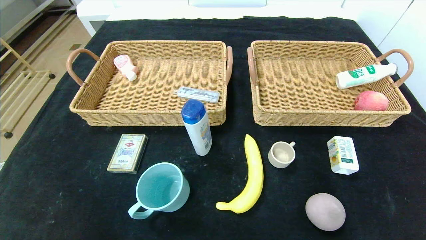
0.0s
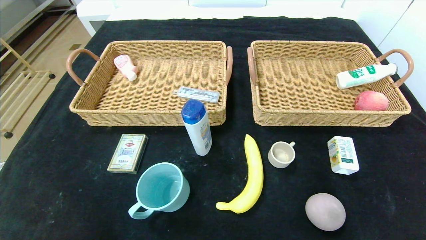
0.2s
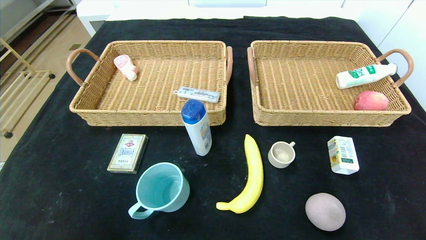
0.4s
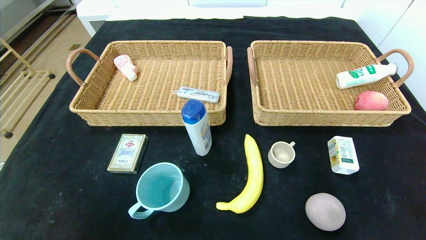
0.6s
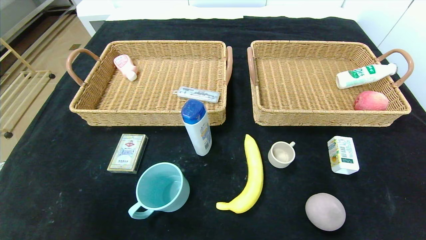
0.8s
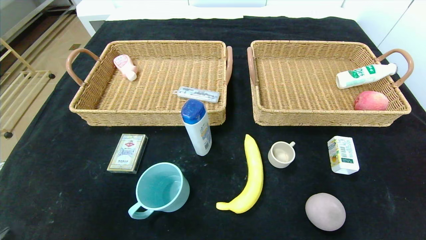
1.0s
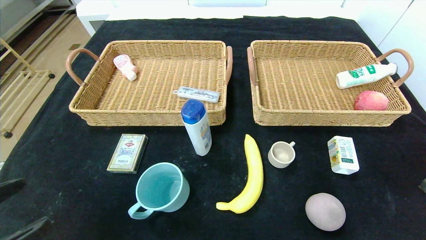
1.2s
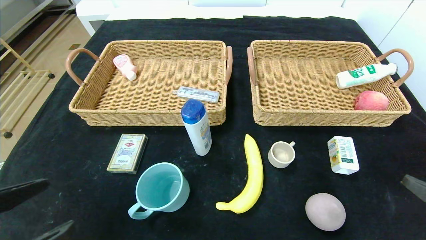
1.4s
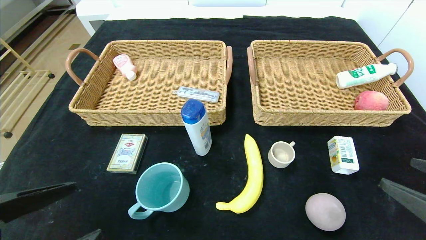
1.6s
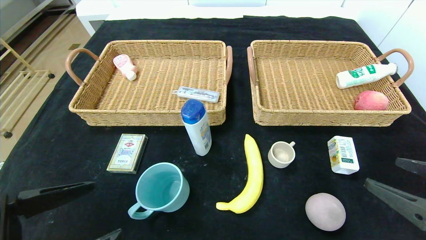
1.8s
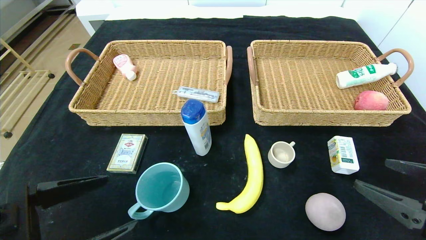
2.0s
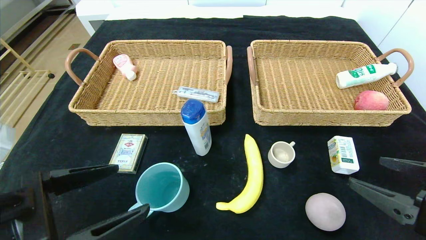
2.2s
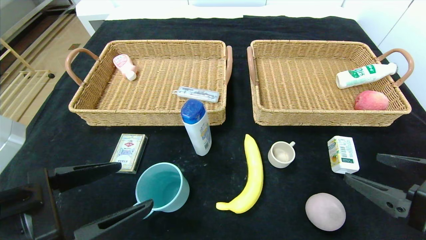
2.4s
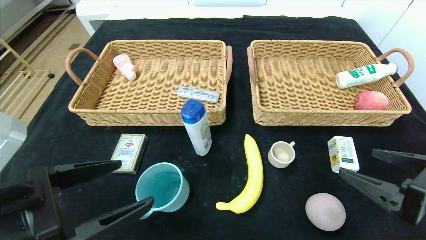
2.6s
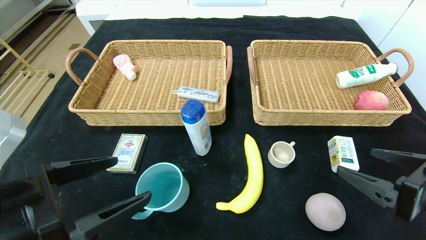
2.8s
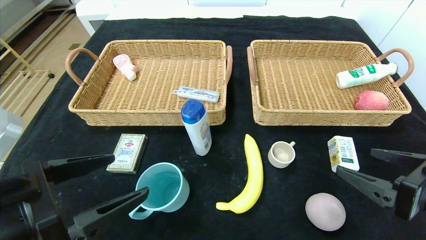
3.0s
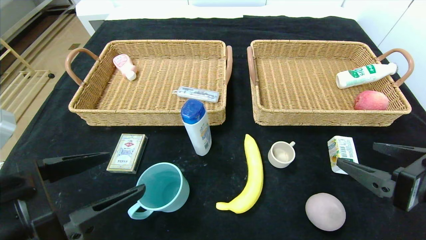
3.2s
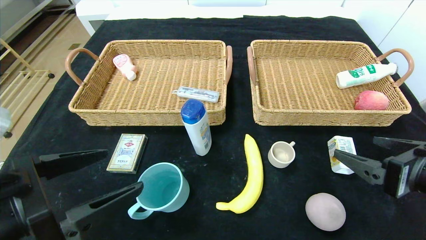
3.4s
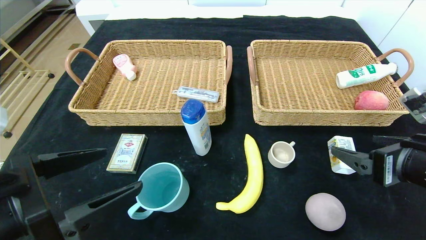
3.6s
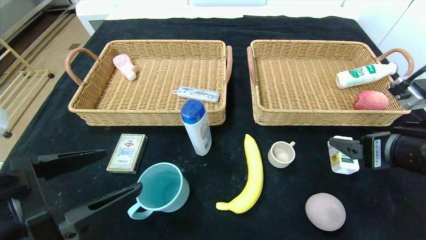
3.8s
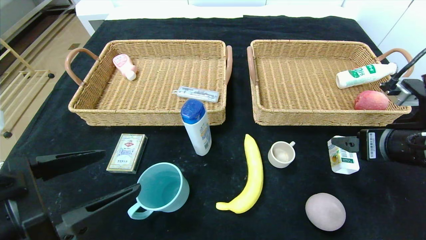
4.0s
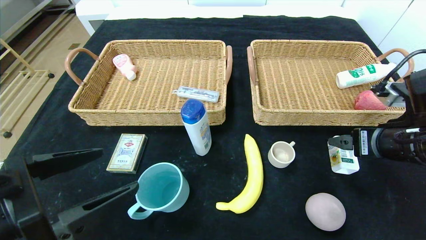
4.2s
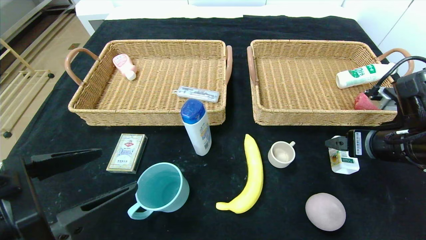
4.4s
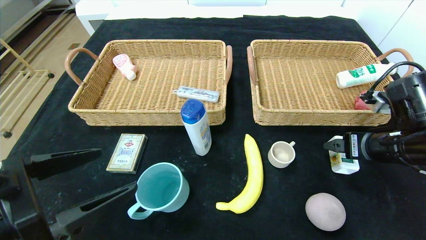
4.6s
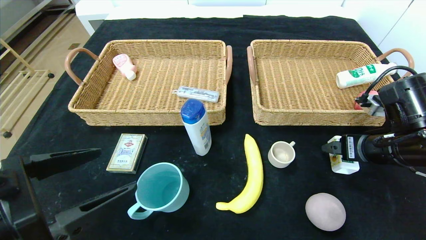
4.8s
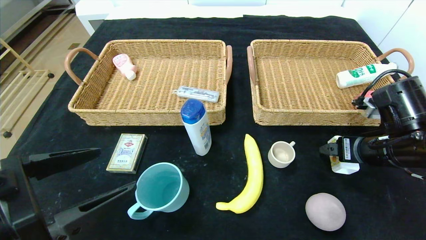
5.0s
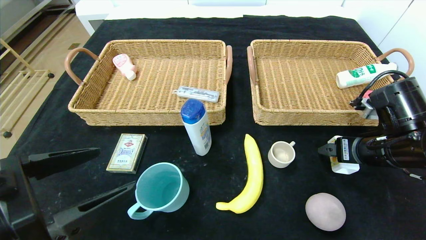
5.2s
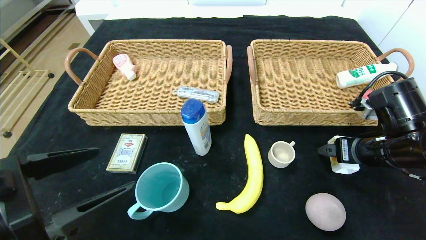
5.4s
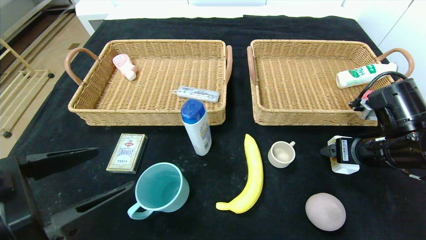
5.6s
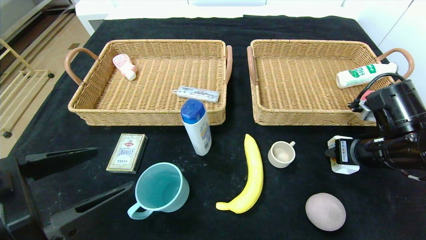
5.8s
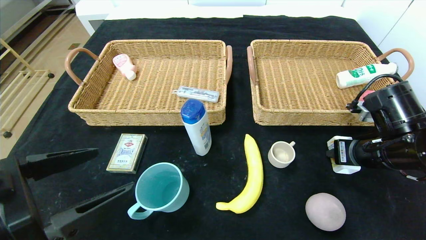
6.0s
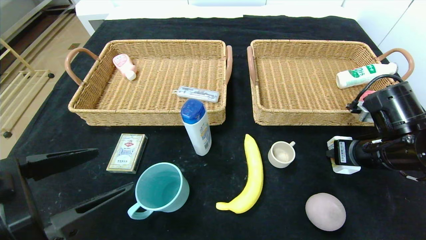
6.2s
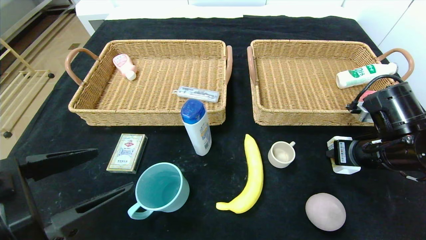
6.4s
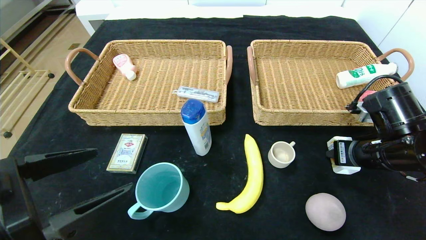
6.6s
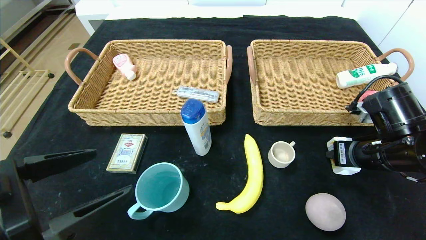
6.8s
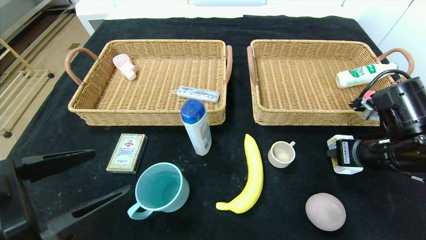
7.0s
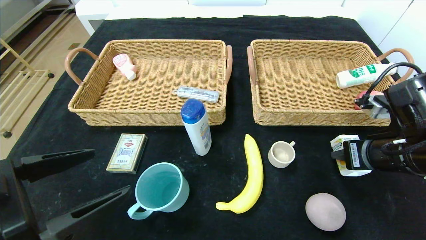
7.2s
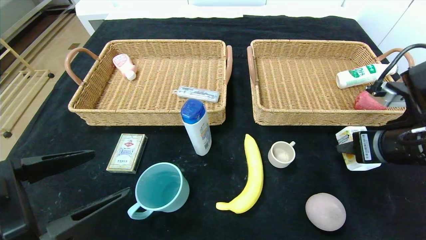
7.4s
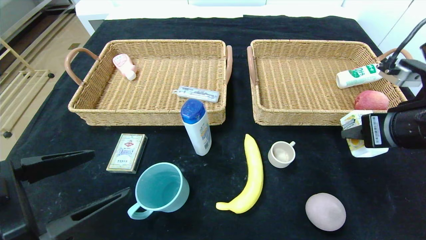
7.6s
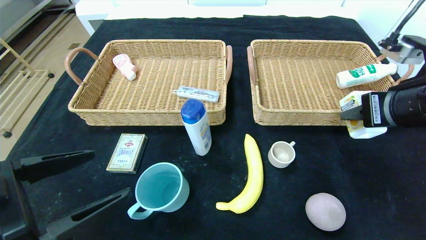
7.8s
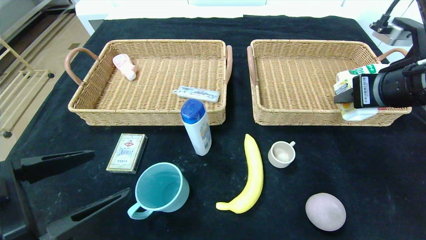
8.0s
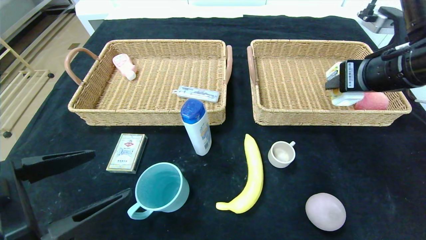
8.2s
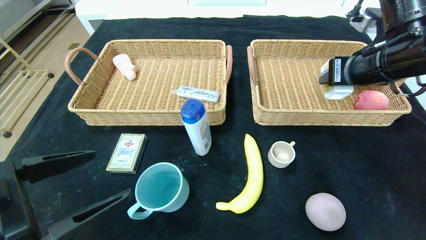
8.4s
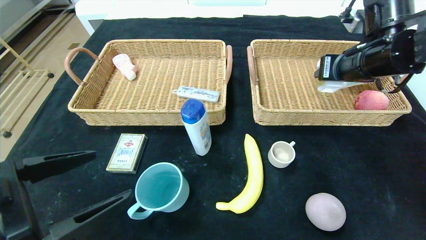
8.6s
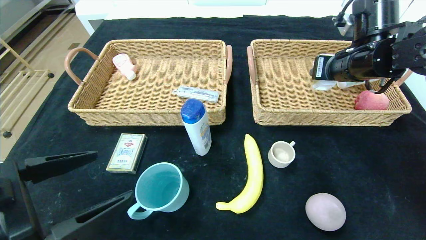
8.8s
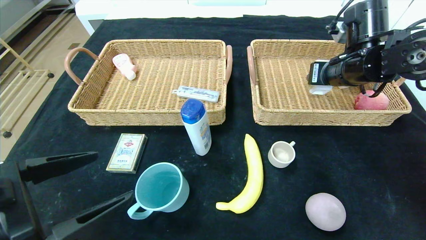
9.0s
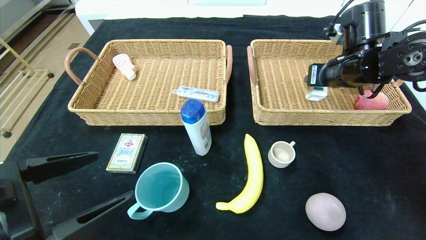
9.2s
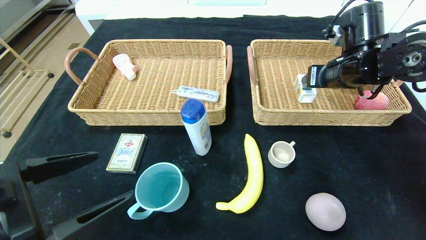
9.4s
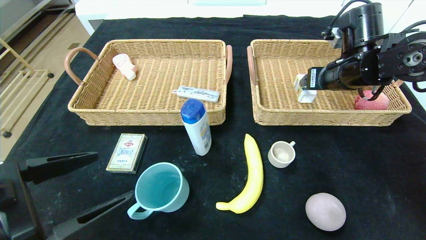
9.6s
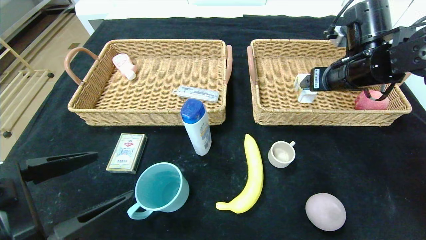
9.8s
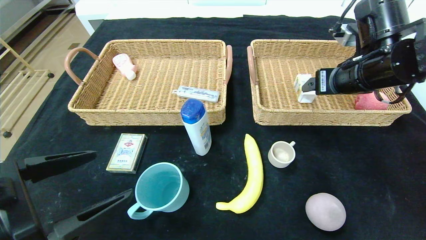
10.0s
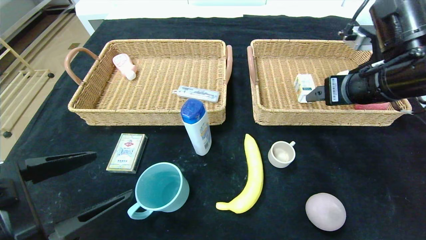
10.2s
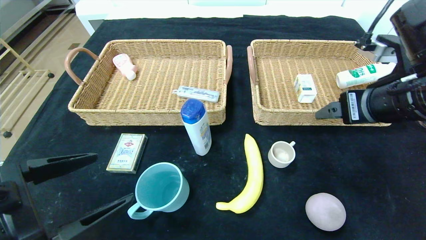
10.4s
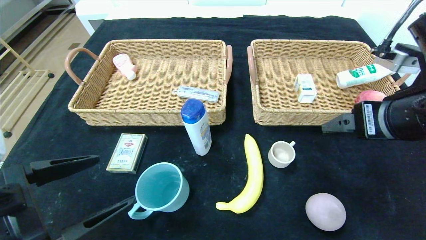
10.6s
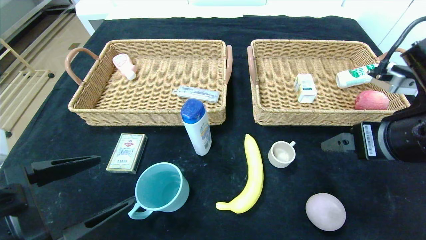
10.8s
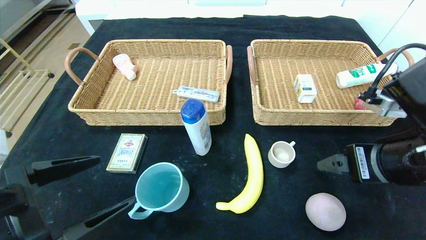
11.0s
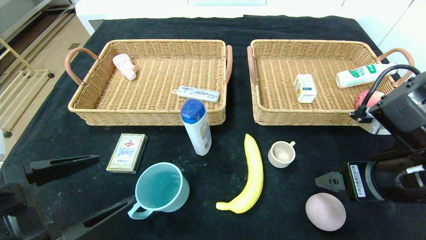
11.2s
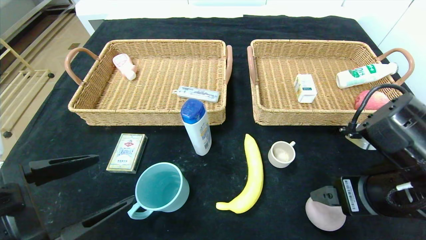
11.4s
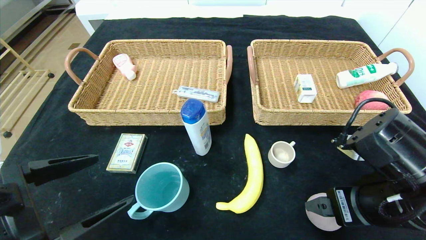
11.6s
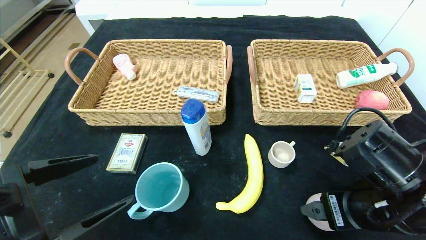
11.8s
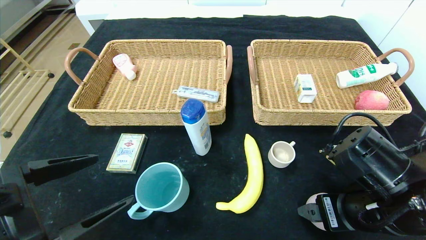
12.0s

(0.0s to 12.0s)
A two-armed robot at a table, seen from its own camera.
Step, 0.0s - 10.6s: Pick up the square chewing gum and put it in the right basket.
0.0s - 1.6s: The grippers both shift forward and upward by some 10 cm.
1.6s - 3.0s: The right gripper moves roughly 5 cm. The left gripper changes place by approximately 5 cm.
3.0s - 4.4s: The right gripper is displaced forward by roughly 10 cm.
4.4s - 6.0s: The right gripper closes up.
6.0s - 7.6s: The right gripper goes some 10 cm upward.
7.6s - 9.0s: The right gripper goes about 15 cm forward.
9.0s - 10.4s: The right gripper heads backward, covering some 15 cm, and opens up.
10.4s - 12.0s: The right gripper moves downward, about 10 cm.

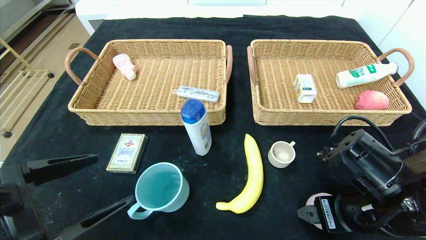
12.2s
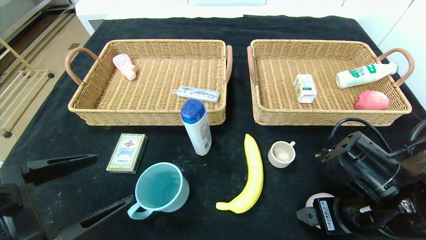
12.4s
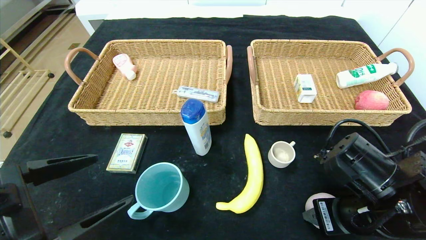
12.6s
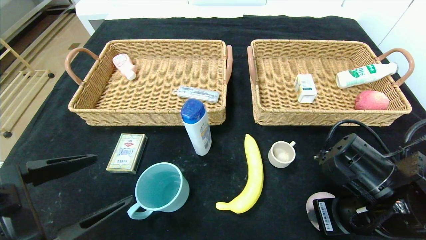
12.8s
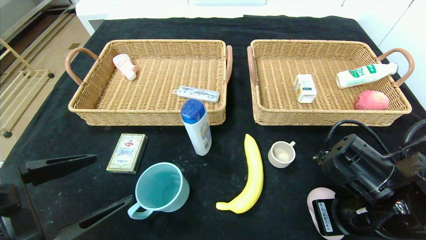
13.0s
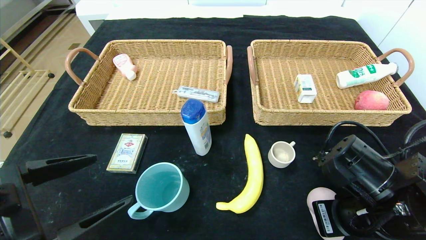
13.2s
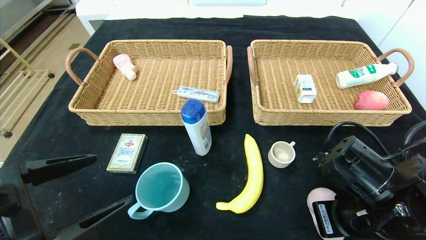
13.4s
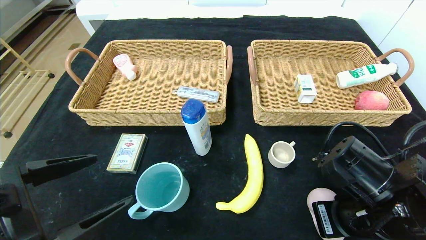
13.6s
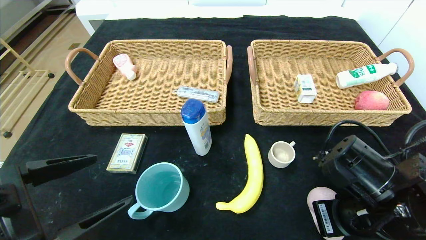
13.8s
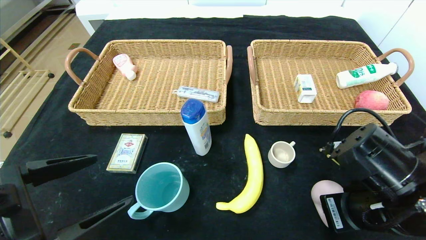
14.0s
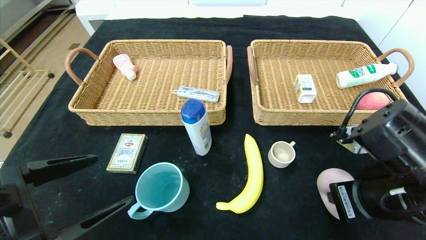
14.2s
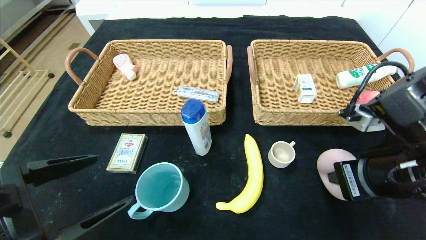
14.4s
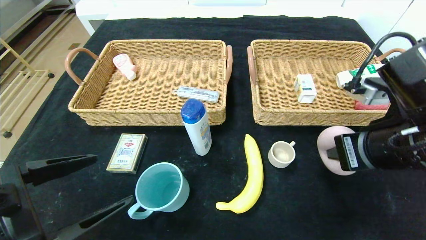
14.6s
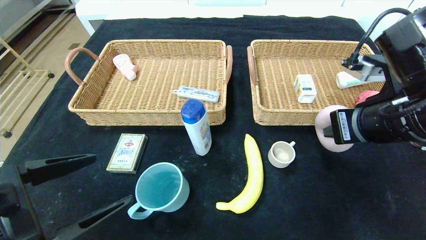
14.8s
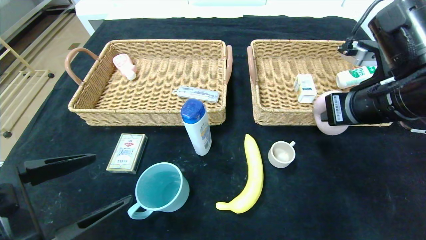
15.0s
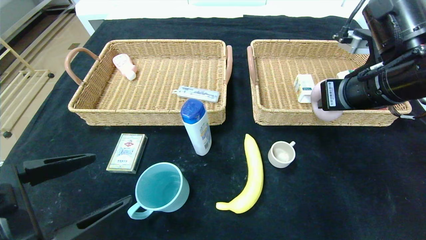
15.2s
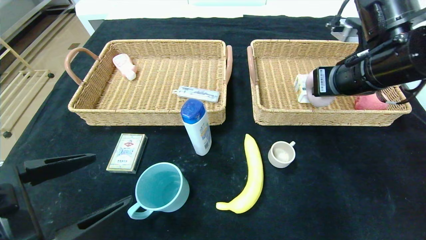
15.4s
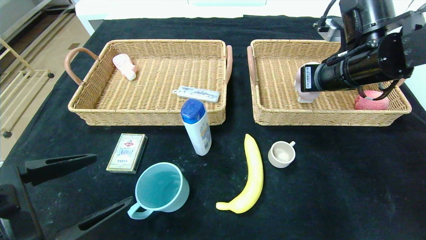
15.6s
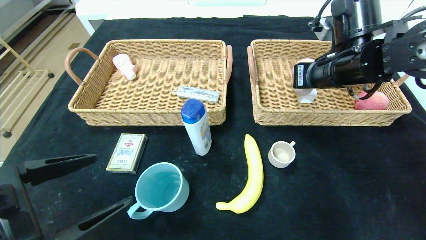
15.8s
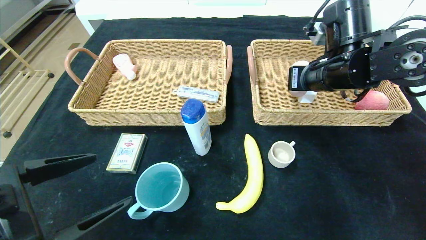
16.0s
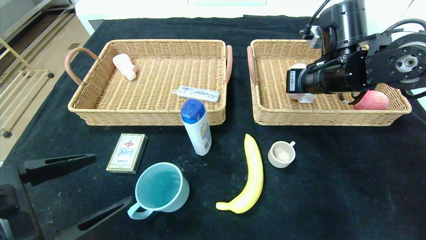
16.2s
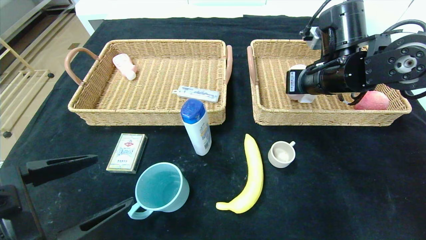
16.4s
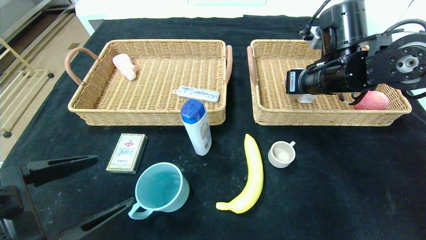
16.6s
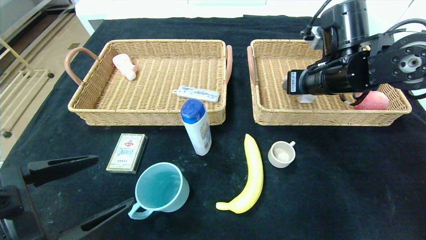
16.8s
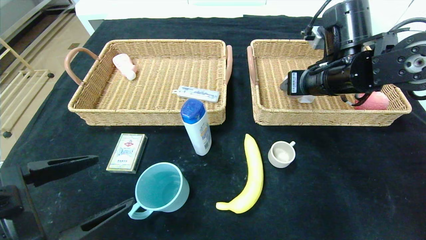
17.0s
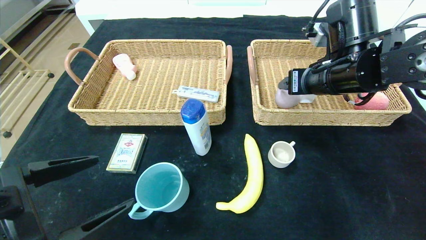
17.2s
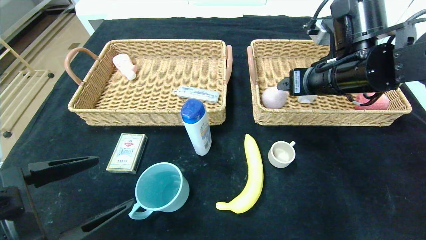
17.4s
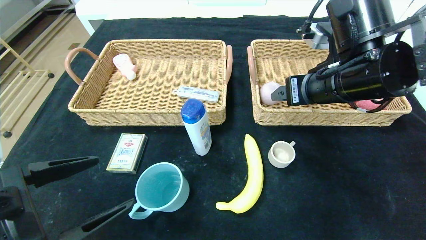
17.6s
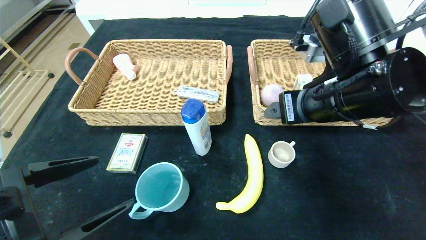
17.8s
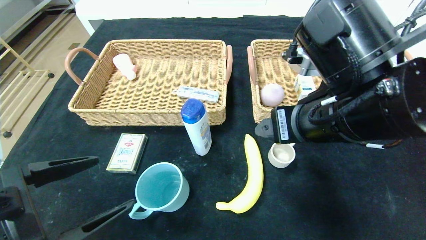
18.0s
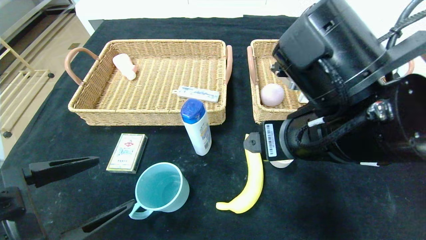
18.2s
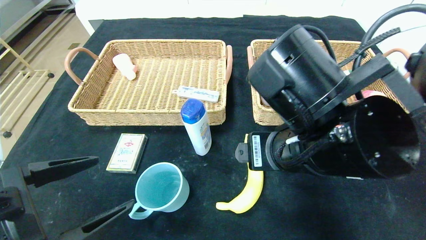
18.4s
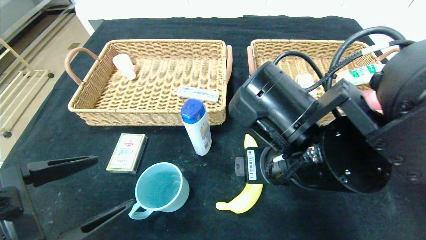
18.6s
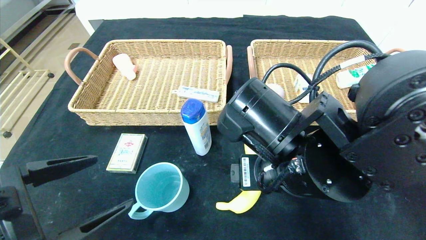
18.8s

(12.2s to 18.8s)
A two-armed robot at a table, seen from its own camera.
12.2s - 13.8s: The right gripper closes up.
13.8s - 15.4s: The right gripper heads upward and forward, covering some 20 cm.
15.4s - 17.2s: The right gripper opens.
17.2s - 18.8s: The right gripper moves backward, to the left and downward, some 20 cm.
